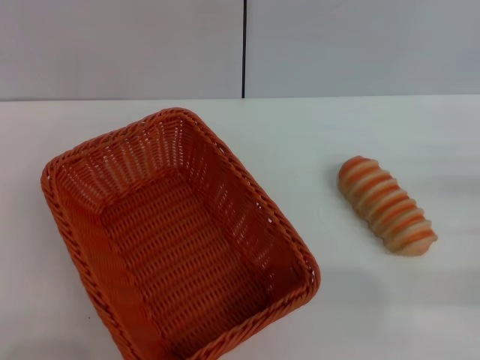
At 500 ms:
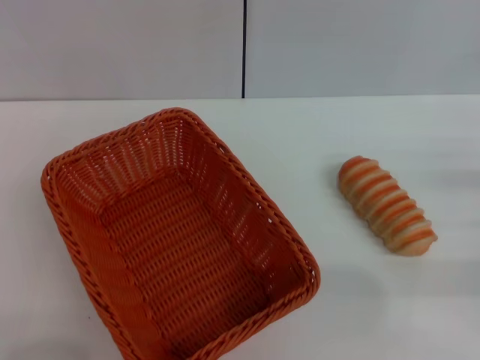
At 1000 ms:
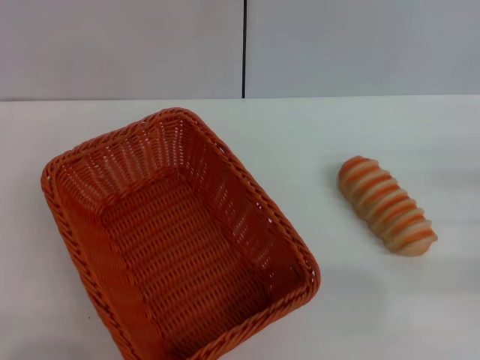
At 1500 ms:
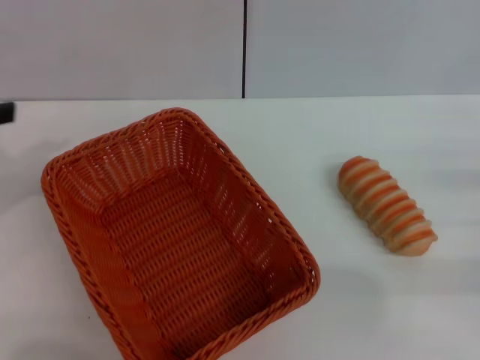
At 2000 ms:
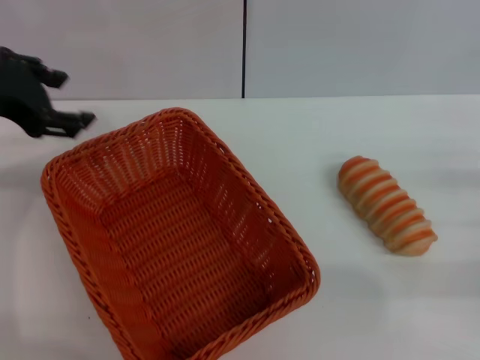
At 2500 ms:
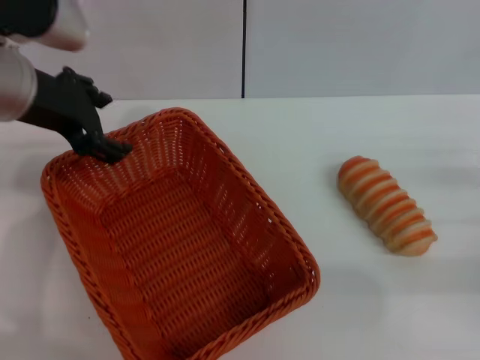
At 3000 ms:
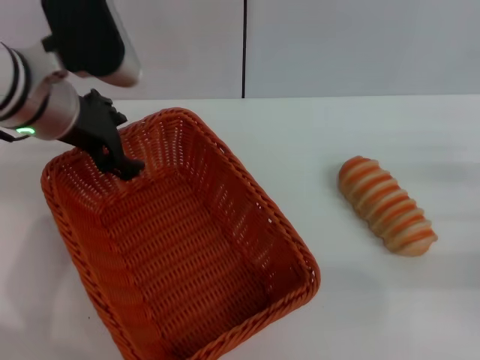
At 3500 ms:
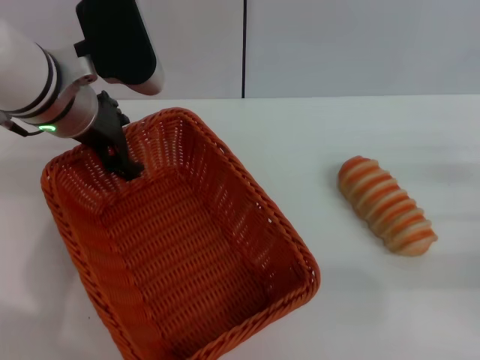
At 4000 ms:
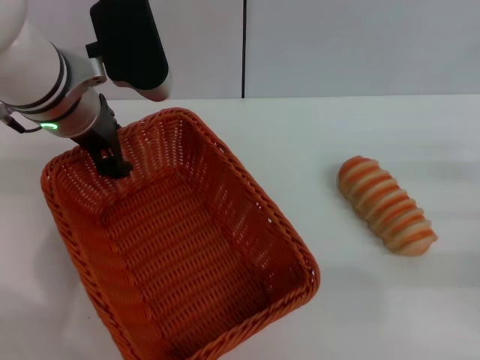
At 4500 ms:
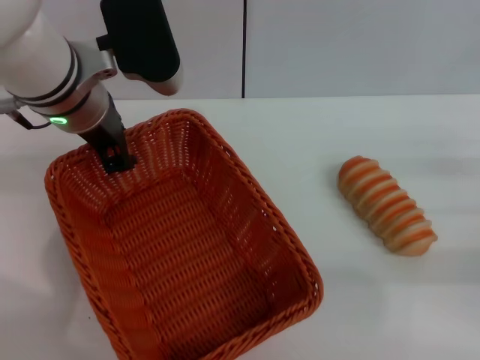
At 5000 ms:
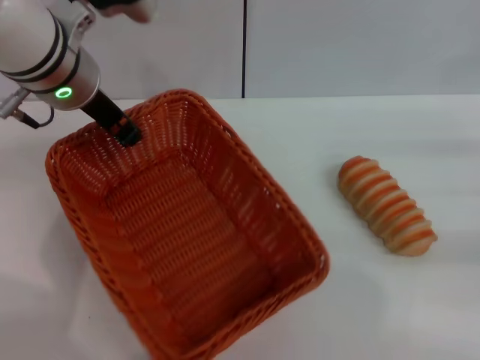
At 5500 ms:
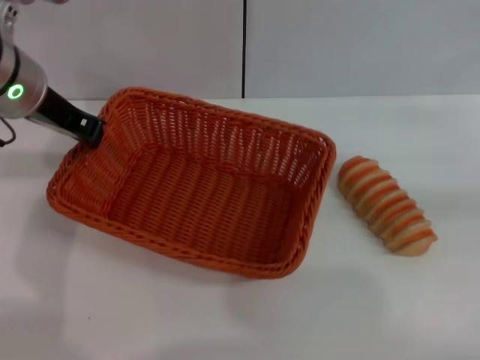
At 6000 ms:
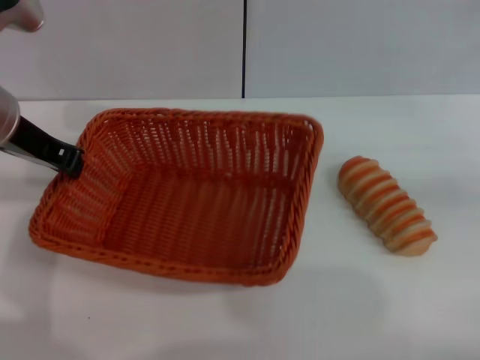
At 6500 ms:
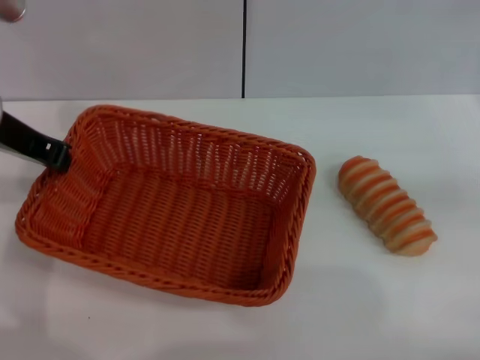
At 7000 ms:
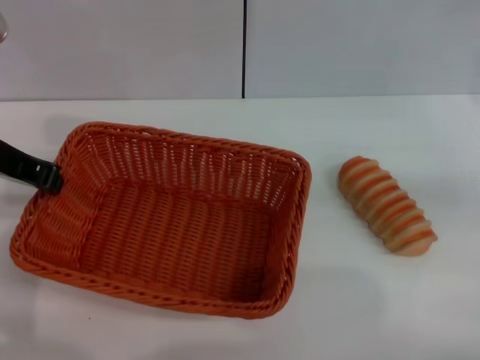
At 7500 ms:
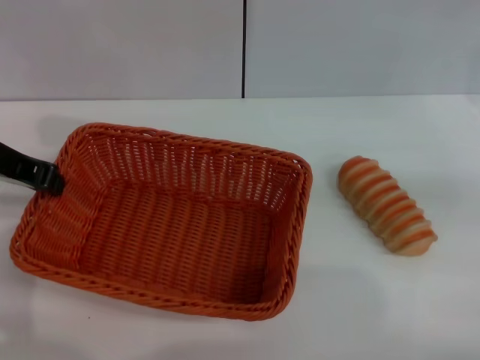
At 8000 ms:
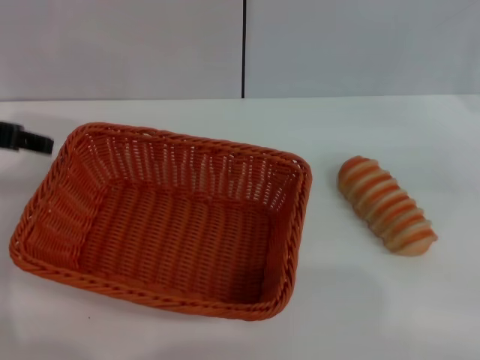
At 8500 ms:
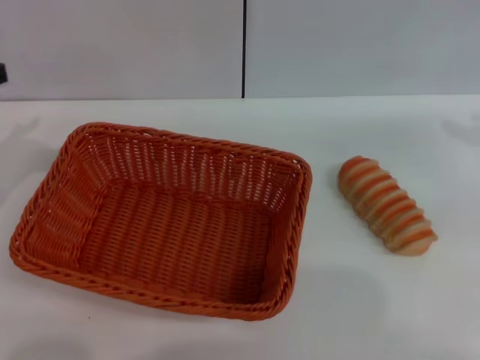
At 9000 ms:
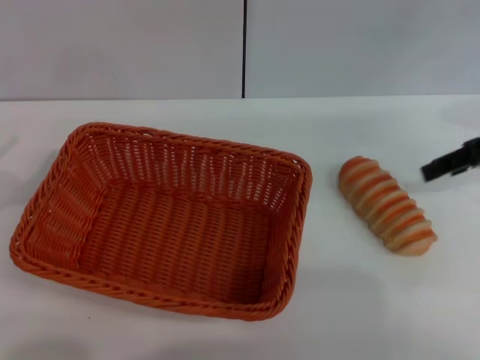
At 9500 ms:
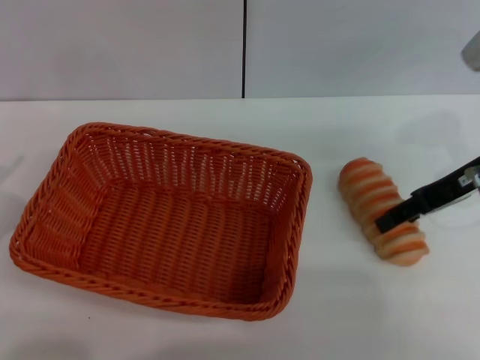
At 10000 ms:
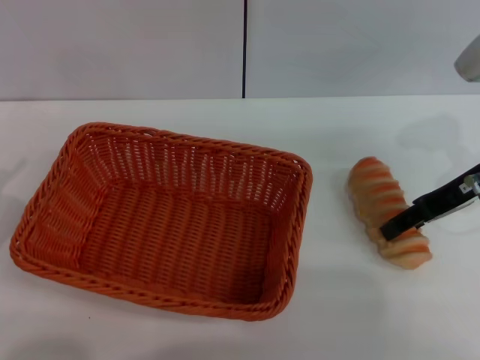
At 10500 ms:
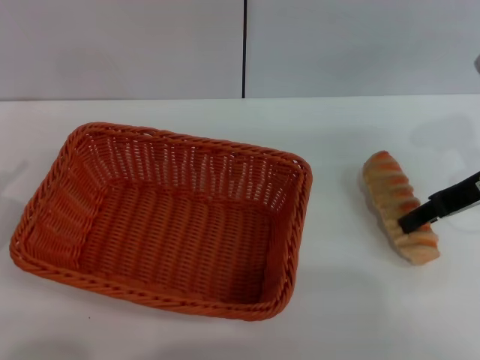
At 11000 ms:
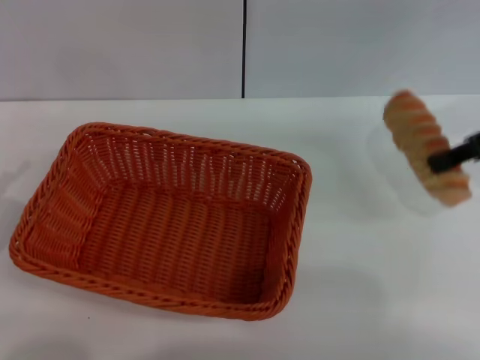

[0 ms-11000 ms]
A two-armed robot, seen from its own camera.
Step, 0 ms to 5000 ms: Pick up the light basket with the left gripper.
Step, 5500 ms to 8000 ms: Place the light basket in the center of view with the left gripper.
Step, 8500 ms to 10500 ms: Pick up the long bread with the right gripper.
0 ms to 2000 ms: The left gripper travels forward, upward and to the right by some 30 cm.
2000 ms to 3500 ms: The left gripper heads to the right and downward, covering some 10 cm.
3500 ms to 5500 ms: The left gripper closes up; the right gripper travels upward and forward by roughly 10 cm.
5500 ms to 7500 ms: The left gripper is displaced backward by roughly 5 cm.
7500 ms to 9000 ms: The right gripper heads to the left, covering approximately 5 cm. The left gripper is displaced to the left, backward and downward by about 20 cm, and opens its fingers.
9000 ms to 11000 ms: The right gripper closes up.

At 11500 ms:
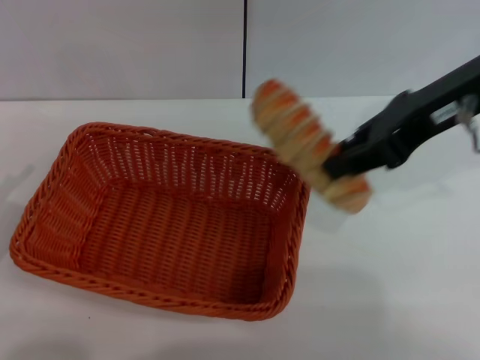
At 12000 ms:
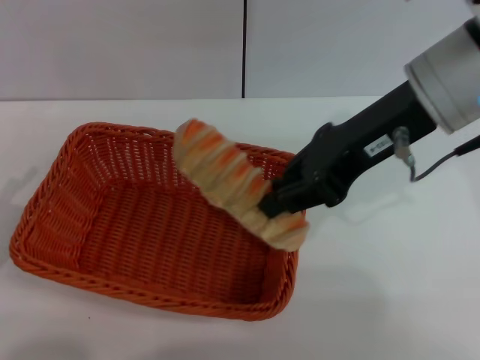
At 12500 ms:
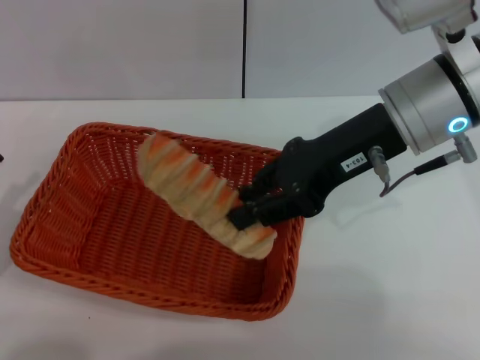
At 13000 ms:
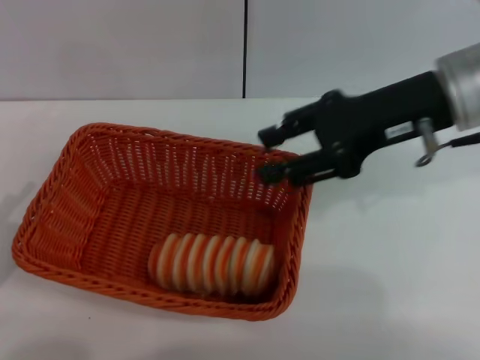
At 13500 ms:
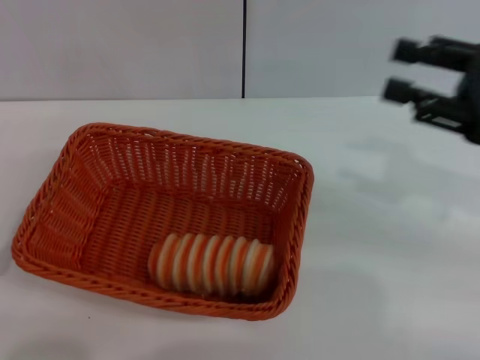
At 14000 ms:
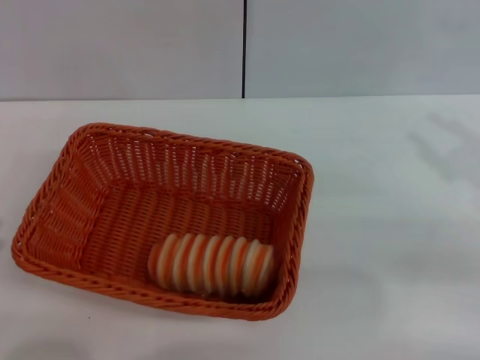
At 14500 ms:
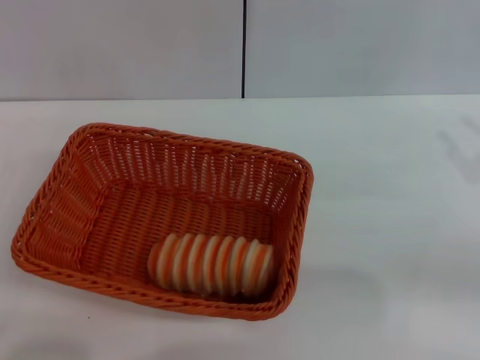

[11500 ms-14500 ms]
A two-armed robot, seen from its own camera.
Step, 11500 ms to 13000 ms: Place the long bread into the light basket with the right gripper.
11500 ms to 13000 ms: The right gripper is displaced downward by approximately 5 cm, and opens its fingers.
13000 ms to 14500 ms: The left gripper is displaced backward by about 5 cm. Meanwhile the right gripper moves to the right, downward and backward, approximately 20 cm.

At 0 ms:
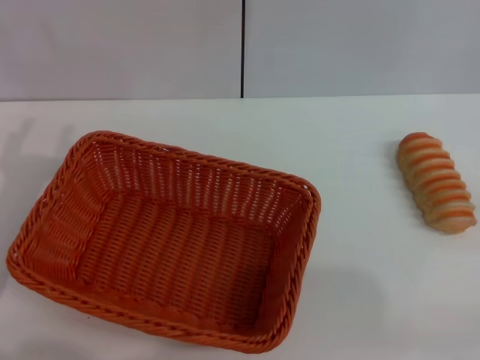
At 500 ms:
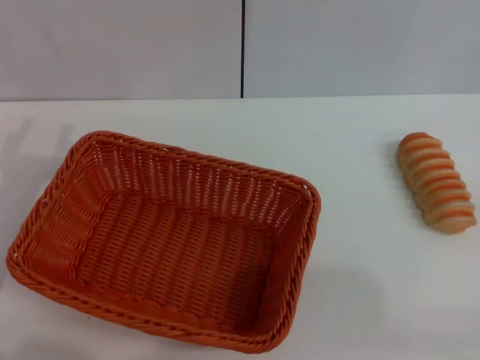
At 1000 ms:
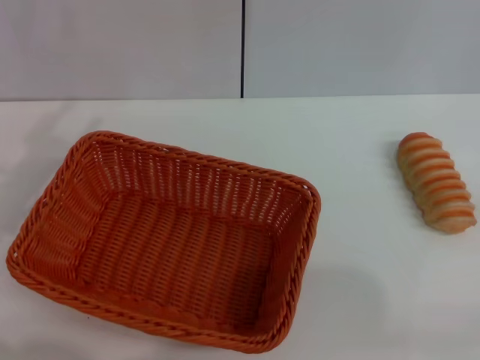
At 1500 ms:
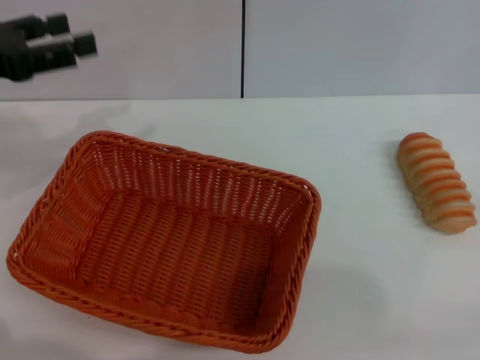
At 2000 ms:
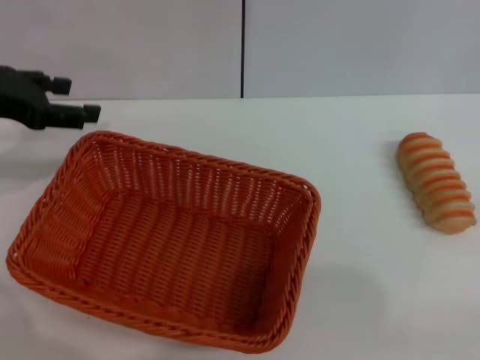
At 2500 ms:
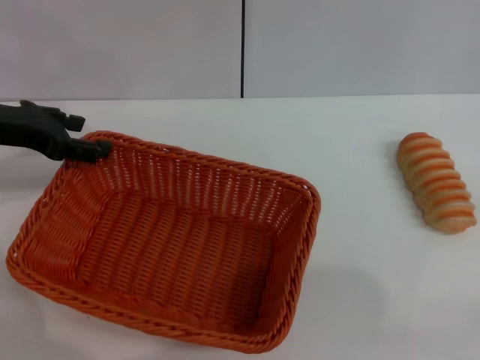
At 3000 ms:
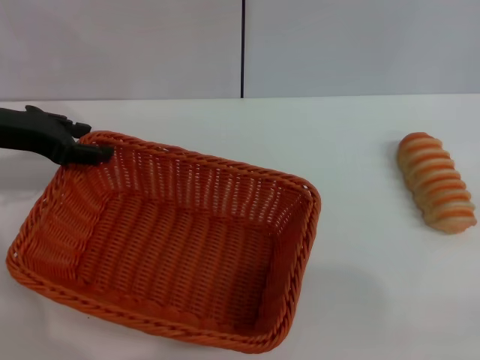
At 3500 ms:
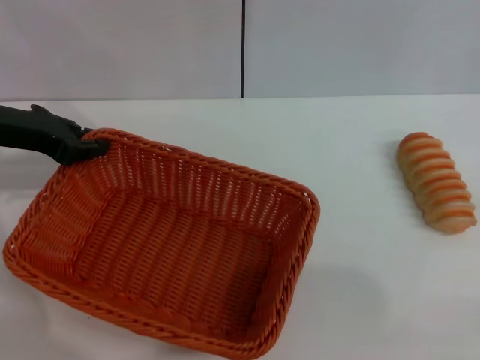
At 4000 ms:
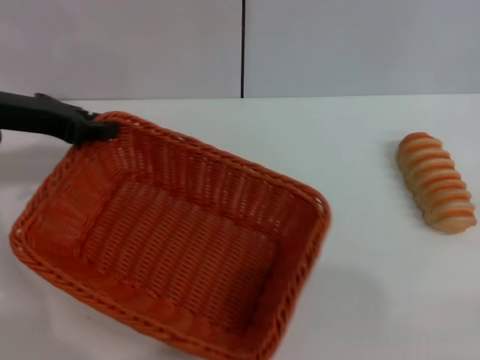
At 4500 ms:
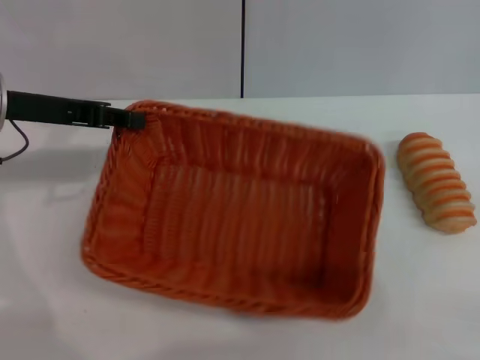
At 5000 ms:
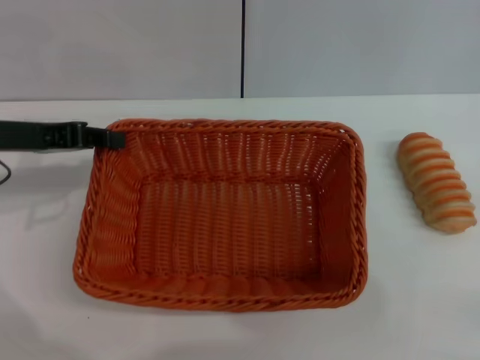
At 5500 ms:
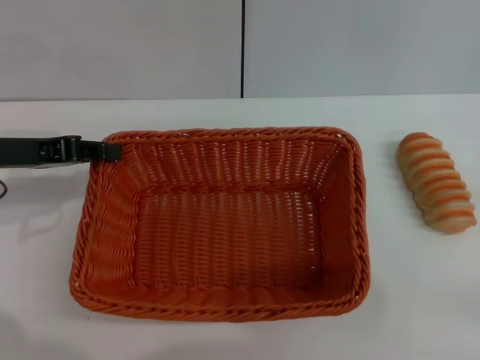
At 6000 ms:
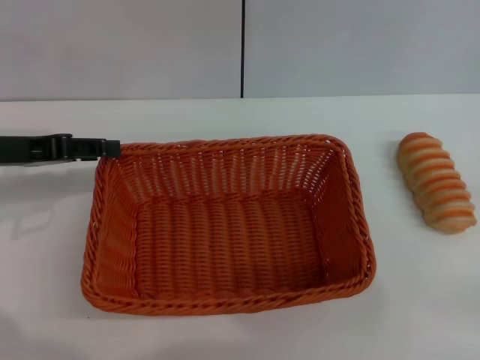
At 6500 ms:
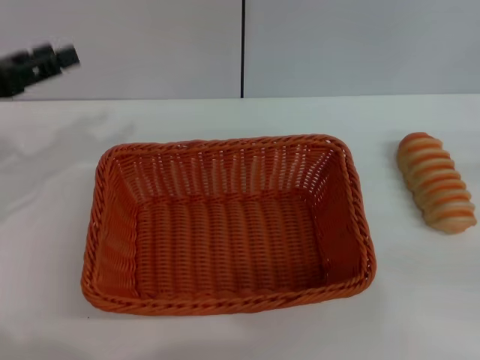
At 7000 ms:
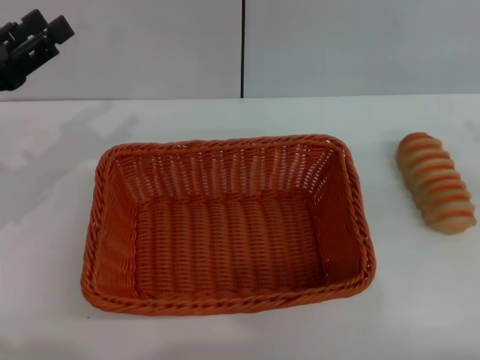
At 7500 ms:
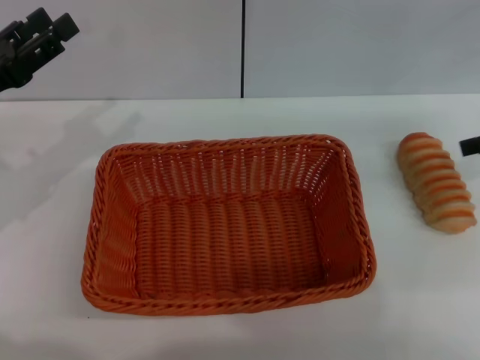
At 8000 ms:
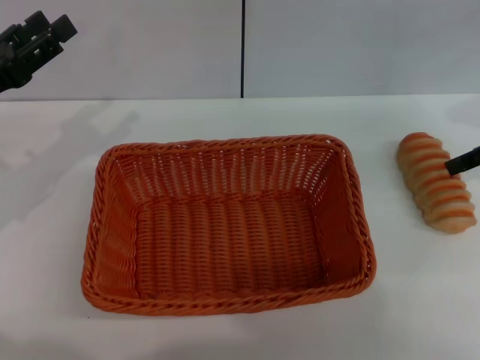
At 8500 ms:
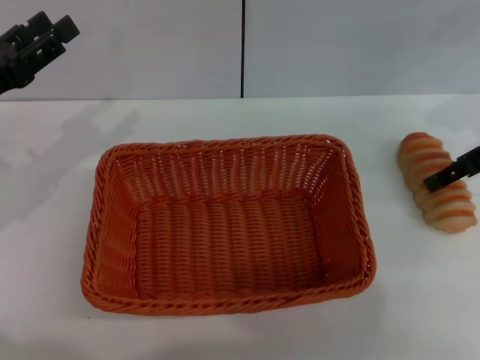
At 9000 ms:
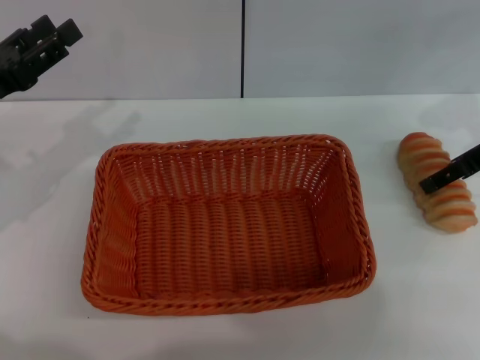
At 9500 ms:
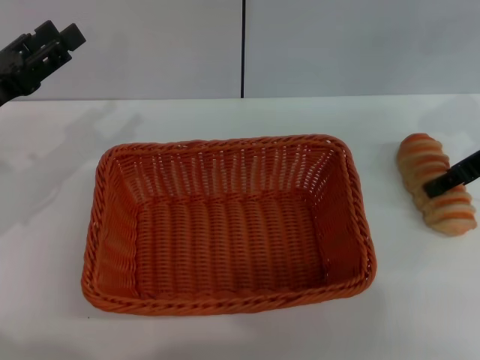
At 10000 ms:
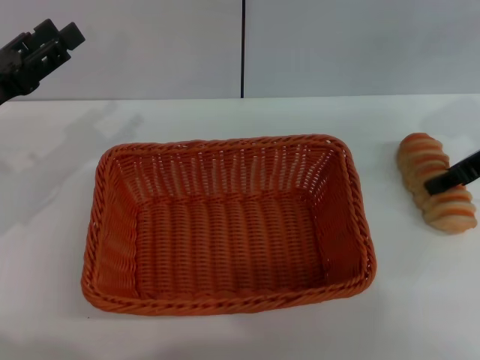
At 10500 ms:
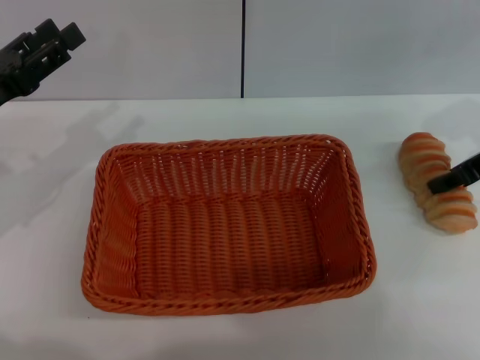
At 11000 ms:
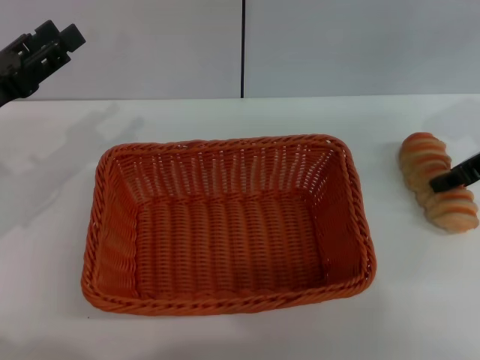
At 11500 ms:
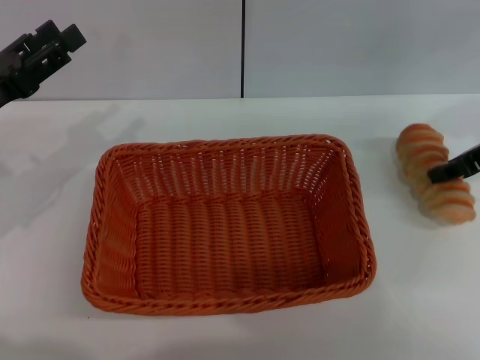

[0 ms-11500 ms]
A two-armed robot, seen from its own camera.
Step, 0 ms to 3500 ms: Pick up the light basket with the left gripper.
Step, 4000 ms to 6000 ms: Place the light basket in the center of view with the left gripper.
0 ms to 2000 ms: The left gripper travels forward and upward by about 15 cm.
2000 ms to 4000 ms: The left gripper closes up.
4000 ms to 6000 ms: The left gripper moves about 5 cm.
6000 ms to 7500 ms: The left gripper opens its fingers, while the right gripper travels forward and upward by approximately 20 cm, and opens.
7500 ms to 9500 ms: The right gripper travels to the left by about 5 cm.
9500 ms to 11500 ms: The right gripper closes.
